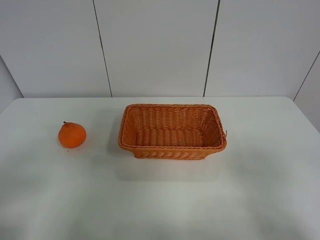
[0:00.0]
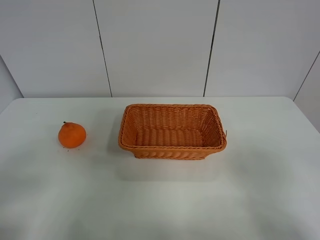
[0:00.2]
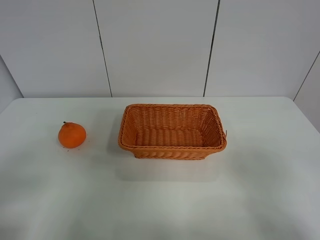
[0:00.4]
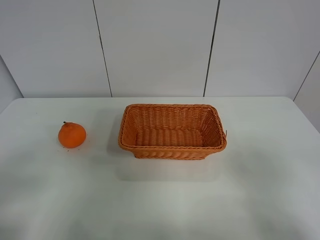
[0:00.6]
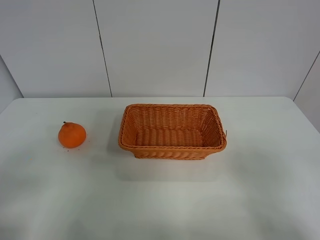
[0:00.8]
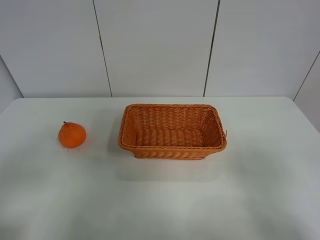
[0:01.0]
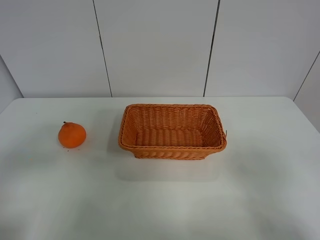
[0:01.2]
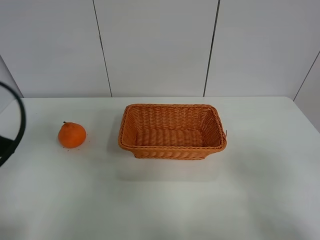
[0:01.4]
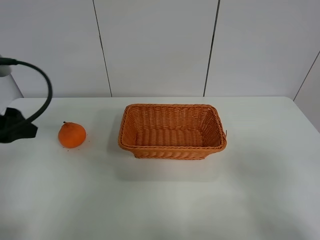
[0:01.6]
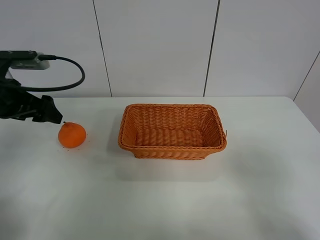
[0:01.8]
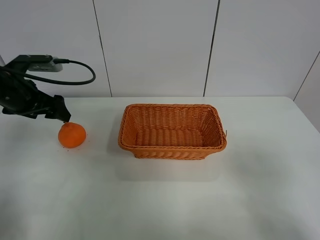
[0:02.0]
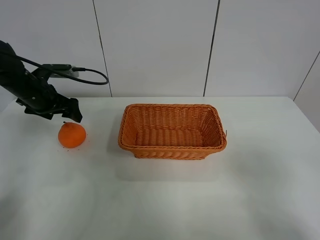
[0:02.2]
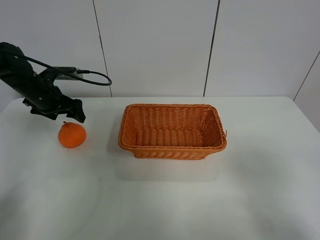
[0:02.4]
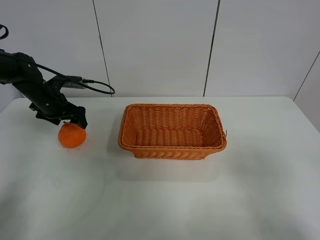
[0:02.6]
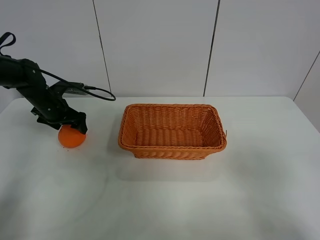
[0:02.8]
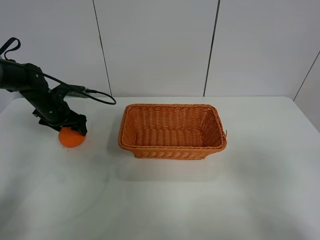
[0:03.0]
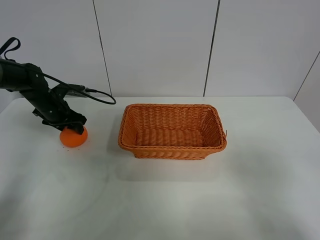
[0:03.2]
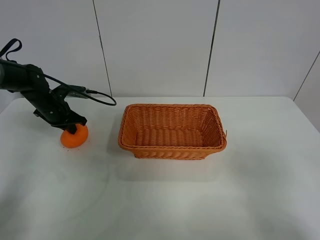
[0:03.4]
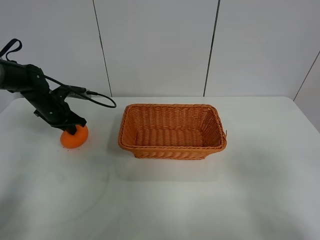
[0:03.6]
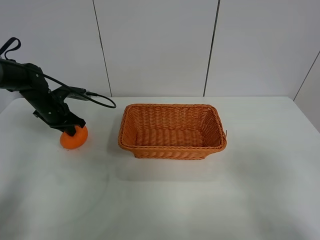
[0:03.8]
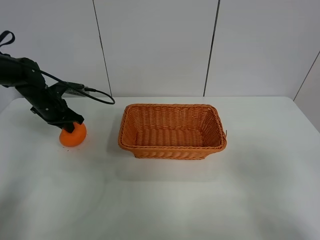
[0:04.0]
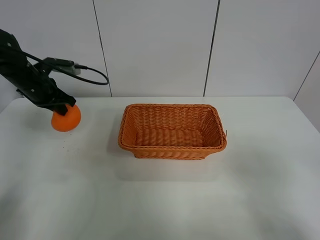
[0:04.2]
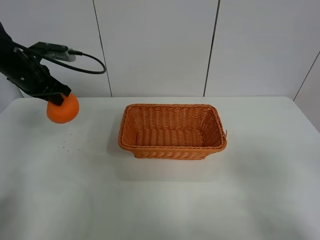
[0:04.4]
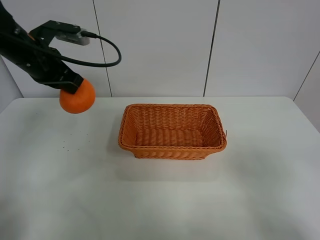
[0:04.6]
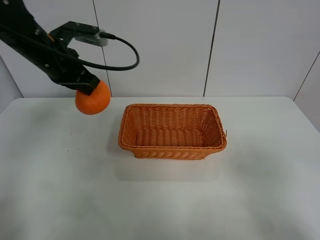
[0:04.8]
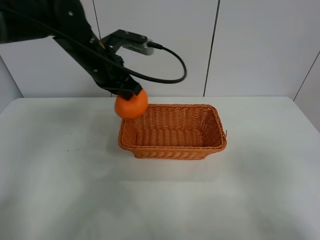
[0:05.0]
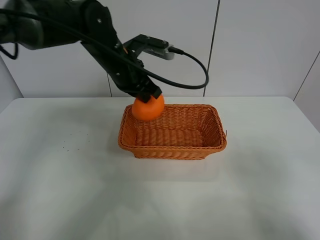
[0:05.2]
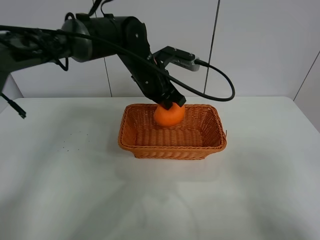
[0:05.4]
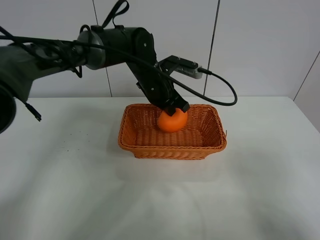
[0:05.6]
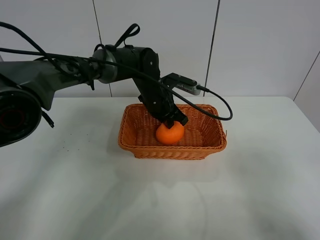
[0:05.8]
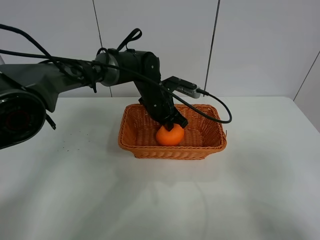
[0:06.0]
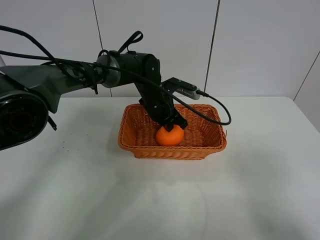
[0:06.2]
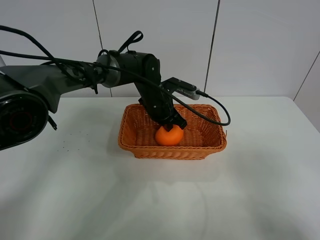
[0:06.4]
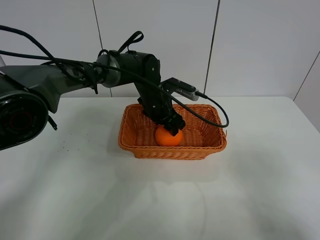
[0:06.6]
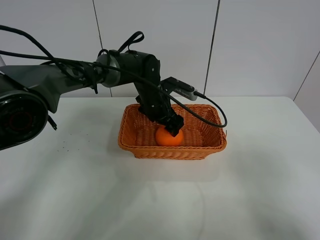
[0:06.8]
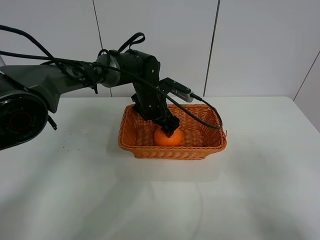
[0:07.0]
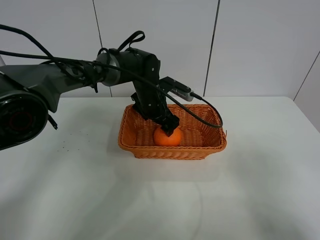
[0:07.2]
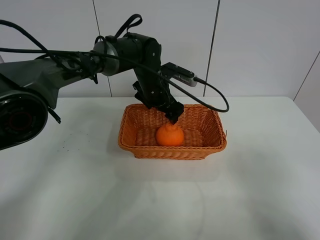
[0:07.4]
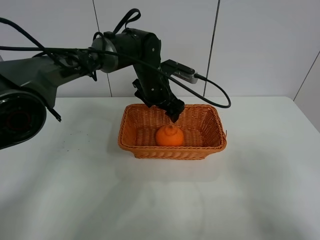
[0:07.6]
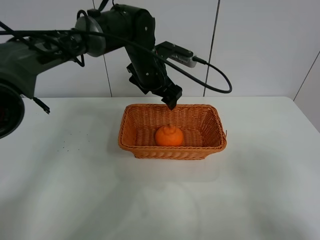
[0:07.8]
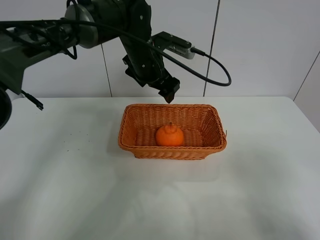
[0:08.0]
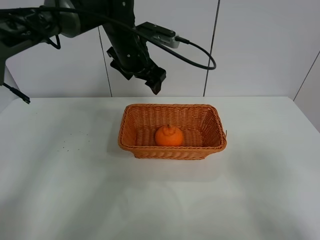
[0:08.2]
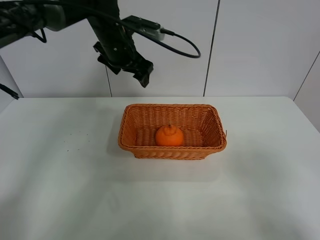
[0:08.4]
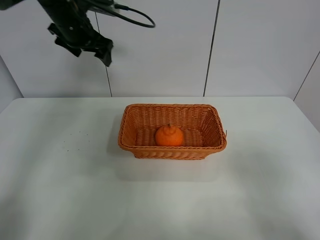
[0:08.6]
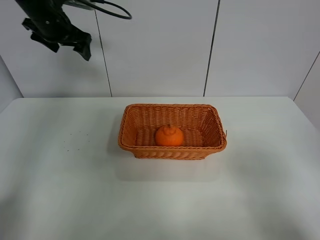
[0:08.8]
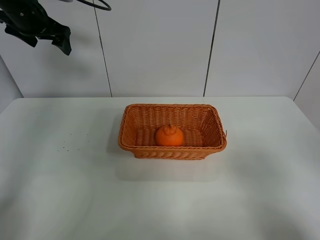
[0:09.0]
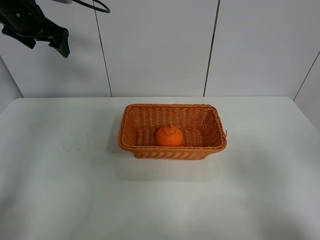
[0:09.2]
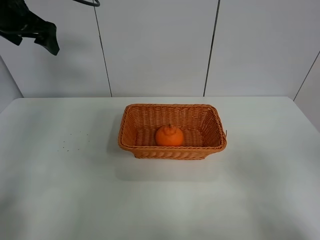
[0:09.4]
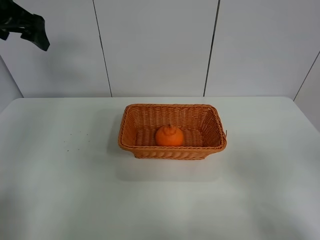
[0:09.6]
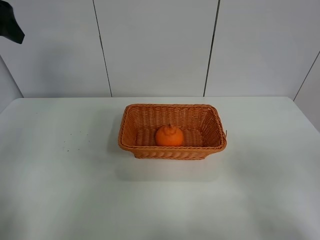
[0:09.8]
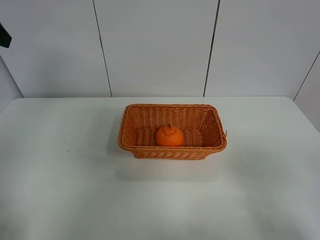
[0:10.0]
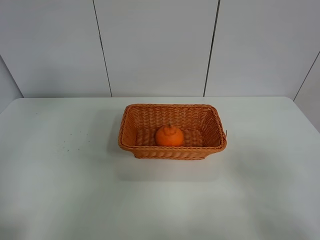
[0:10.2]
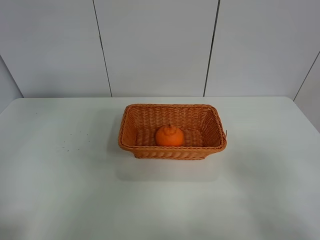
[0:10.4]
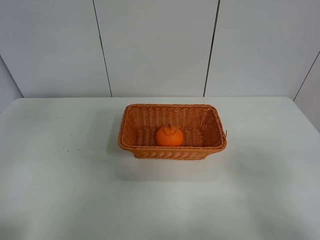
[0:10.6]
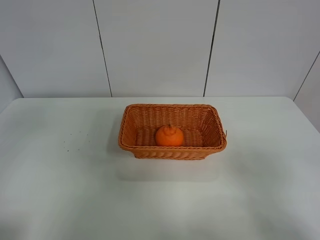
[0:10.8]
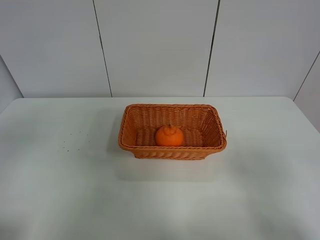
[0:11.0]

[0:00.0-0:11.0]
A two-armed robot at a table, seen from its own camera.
Task of the whole recording: left gripper grabs oranges and puts them in the basket.
Step, 0:00.0 to 0:03.6: Grasp the orange with left gripper.
Step, 0:03.8 to 0:08.4: Place the orange in the basket with left gripper.
0:00.0 to 0:01.6: The left gripper moves forward, about 20 cm.
0:01.6 to 0:03.2: The left gripper travels forward and downward by about 25 cm, and closes up.
0:03.2 to 0:04.8: The left gripper goes roughly 20 cm upward, to the right and backward, and closes up.
0:04.8 to 0:06.2: The left gripper travels to the right and downward by approximately 20 cm.
0:06.2 to 0:07.8: The left gripper moves upward, roughly 10 cm, and opens.
0:07.8 to 0:09.4: The left gripper shifts roughly 30 cm to the left and upward.
0:09.4 to 0:11.0: The left gripper goes roughly 35 cm backward.

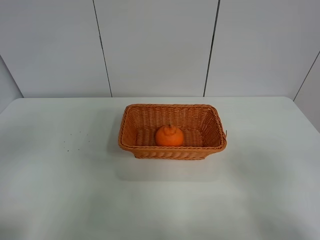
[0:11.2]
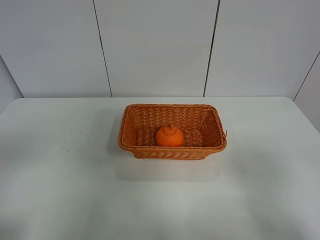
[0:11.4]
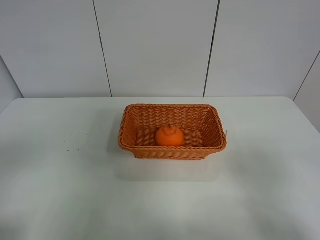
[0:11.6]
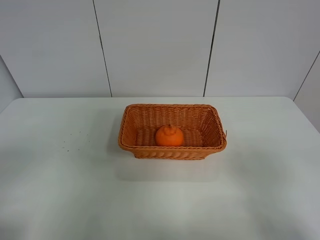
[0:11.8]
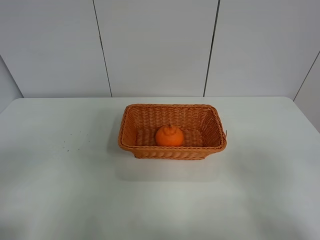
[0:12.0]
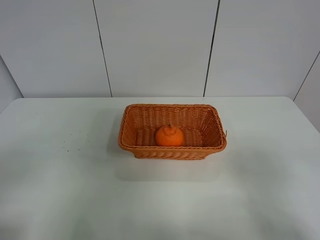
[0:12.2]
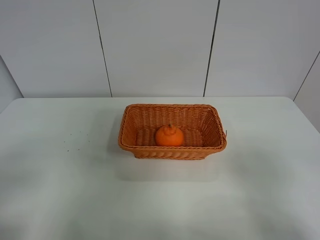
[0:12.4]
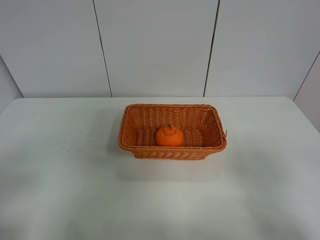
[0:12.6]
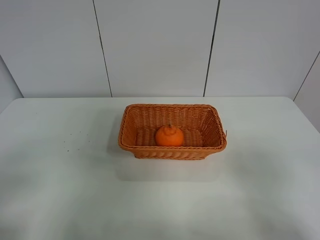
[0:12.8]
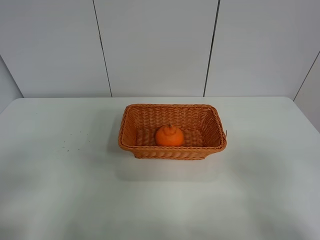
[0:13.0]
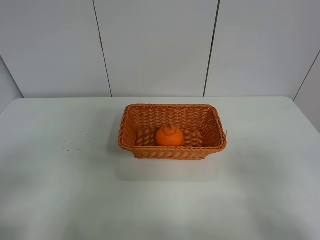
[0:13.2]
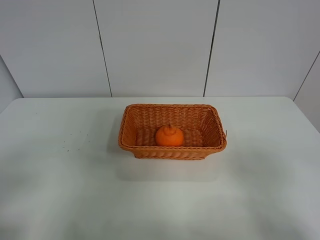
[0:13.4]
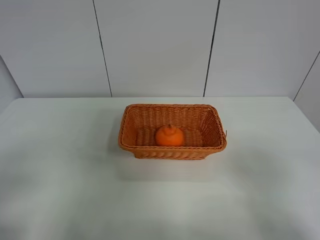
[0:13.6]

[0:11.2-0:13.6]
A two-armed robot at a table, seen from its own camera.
Task of the whole recording: left gripper grabs oranges and puts them in the basket.
0:12.4 to 0:13.6: Neither gripper changes place.
